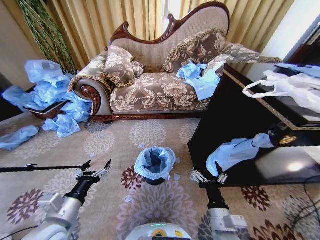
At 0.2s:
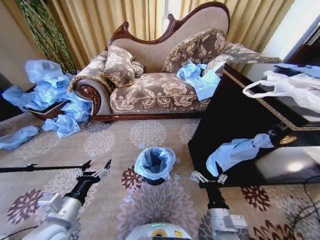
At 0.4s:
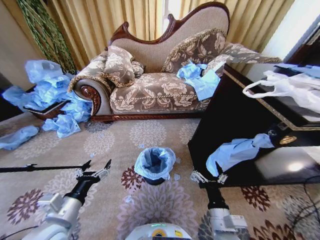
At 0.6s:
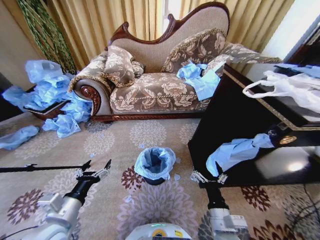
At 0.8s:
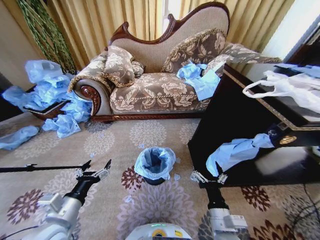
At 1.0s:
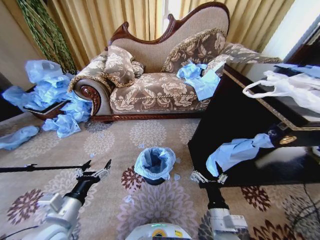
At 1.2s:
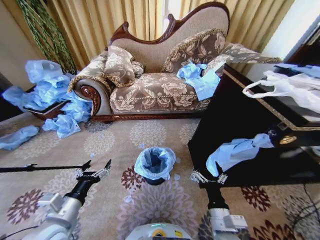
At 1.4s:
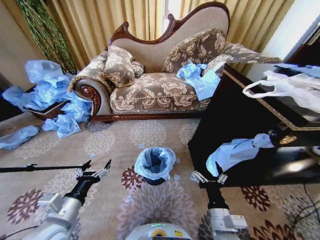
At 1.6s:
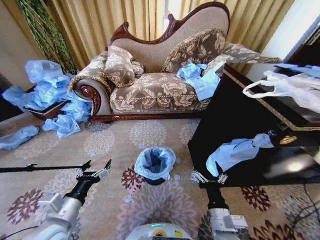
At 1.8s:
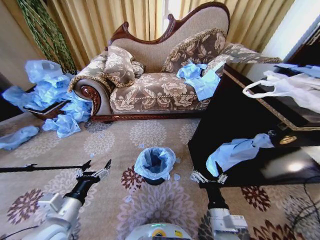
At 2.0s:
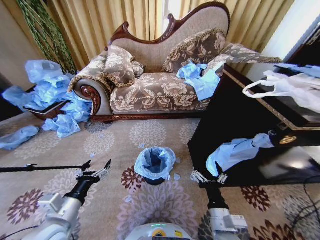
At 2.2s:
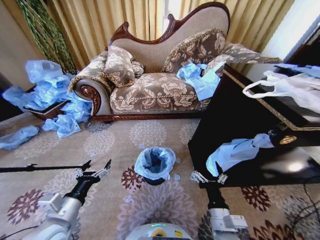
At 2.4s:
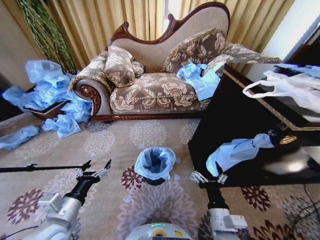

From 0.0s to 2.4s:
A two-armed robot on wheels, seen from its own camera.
Task of the whole recording: Place a garbage bag over the trash bin.
From 0.0s to 2.4s: Neither gripper changes place.
